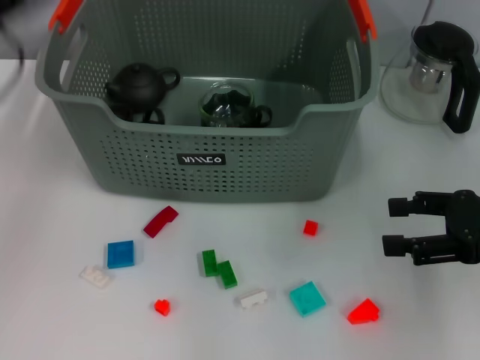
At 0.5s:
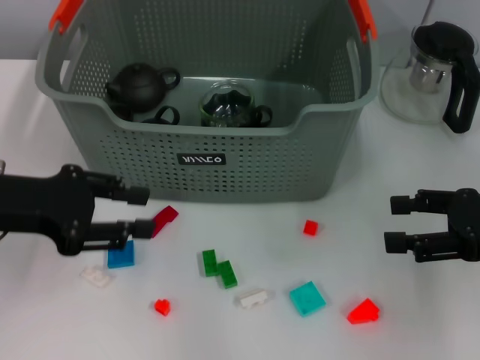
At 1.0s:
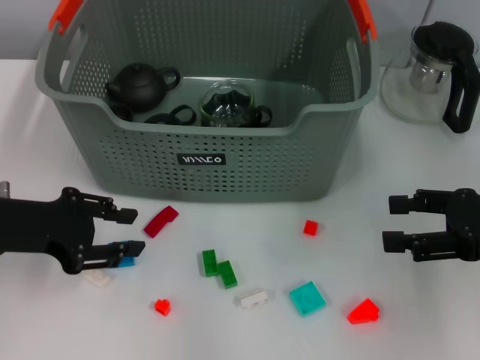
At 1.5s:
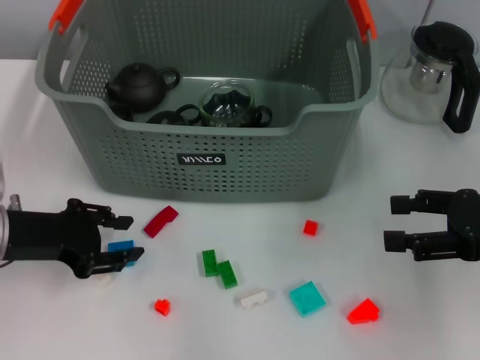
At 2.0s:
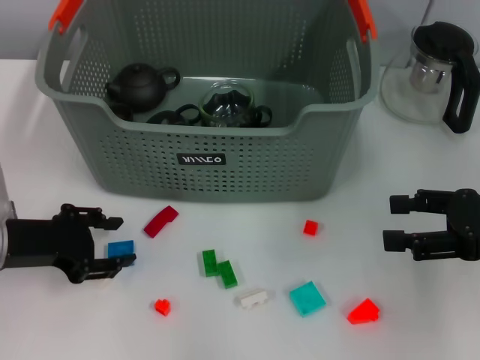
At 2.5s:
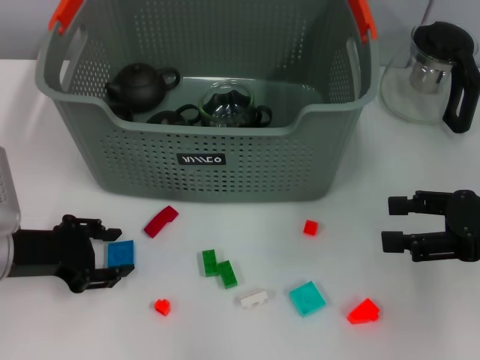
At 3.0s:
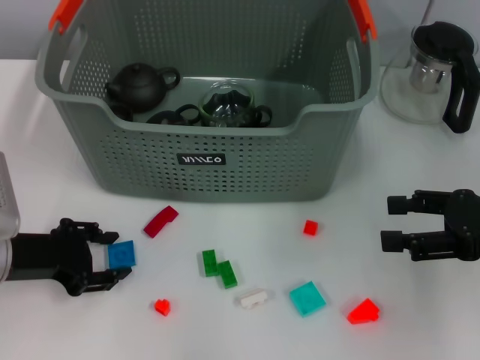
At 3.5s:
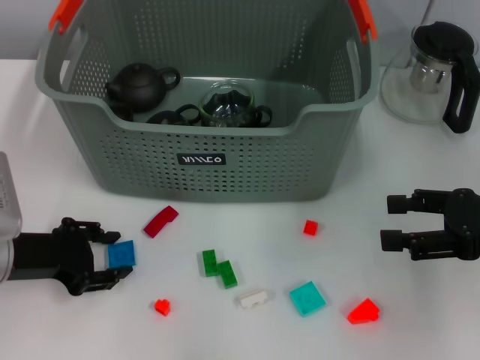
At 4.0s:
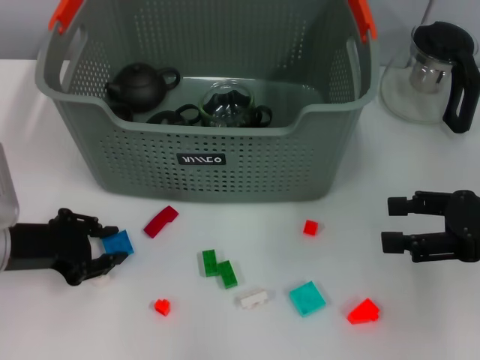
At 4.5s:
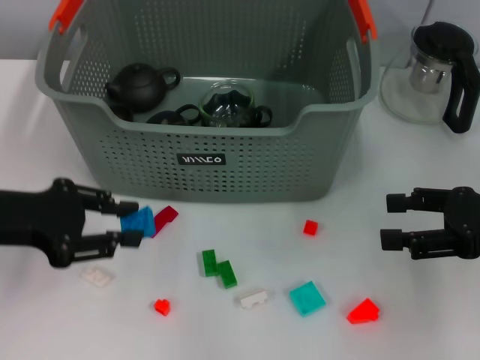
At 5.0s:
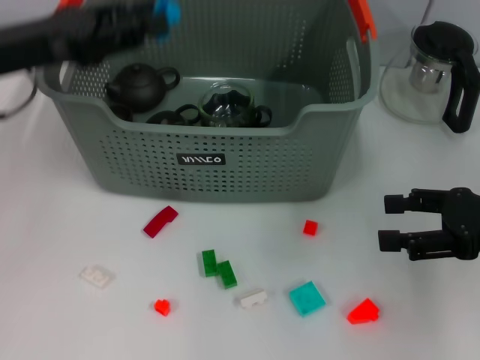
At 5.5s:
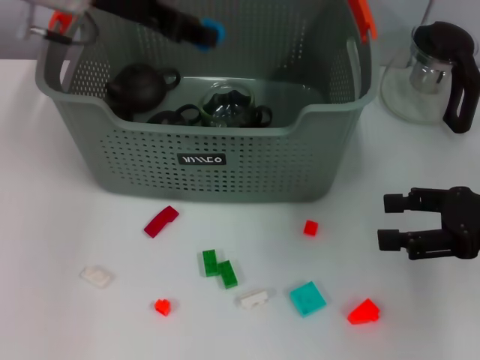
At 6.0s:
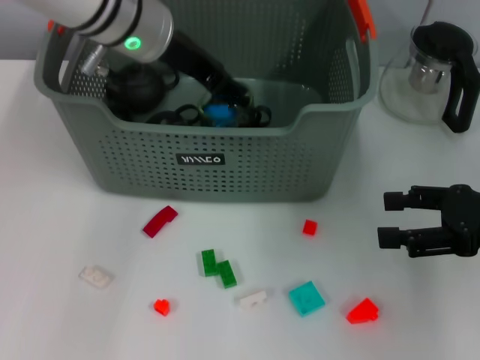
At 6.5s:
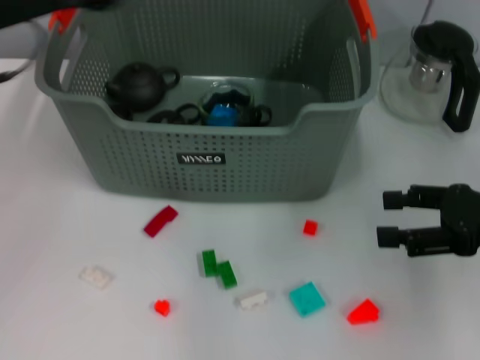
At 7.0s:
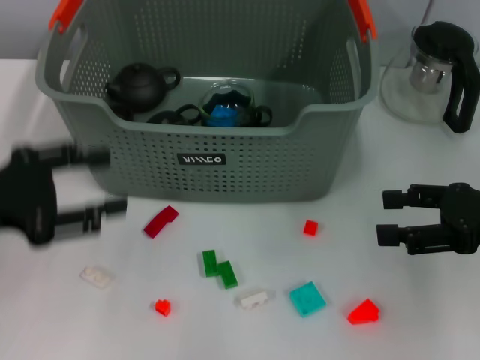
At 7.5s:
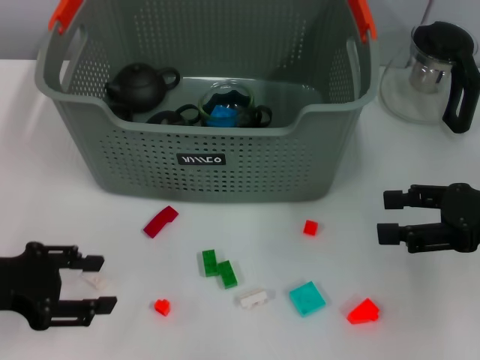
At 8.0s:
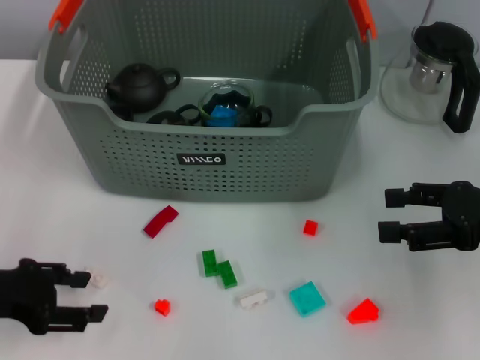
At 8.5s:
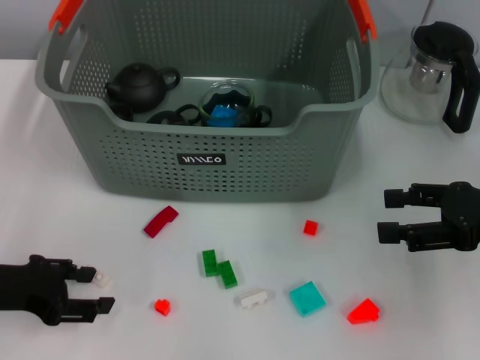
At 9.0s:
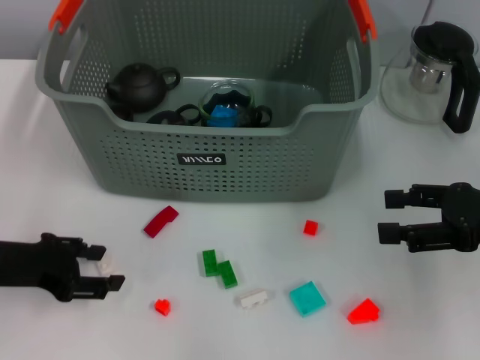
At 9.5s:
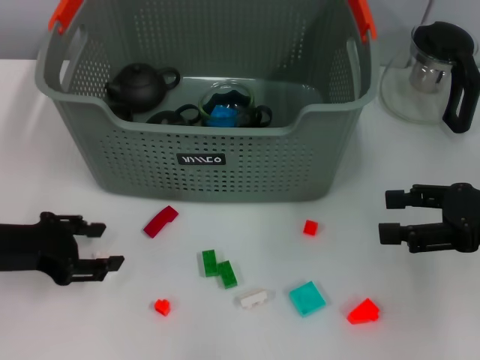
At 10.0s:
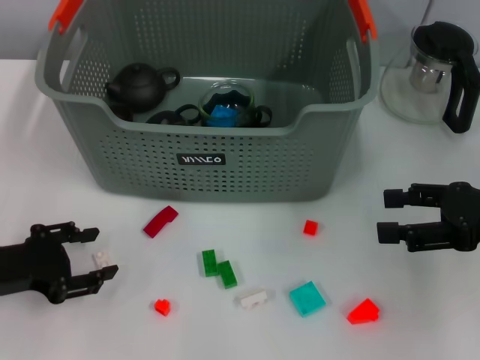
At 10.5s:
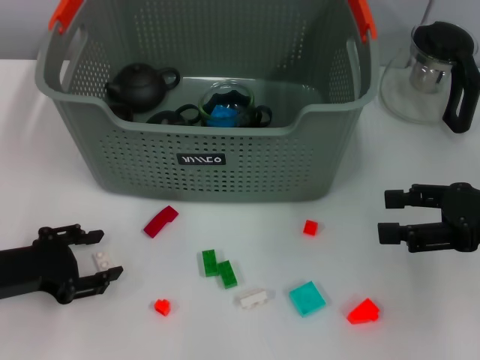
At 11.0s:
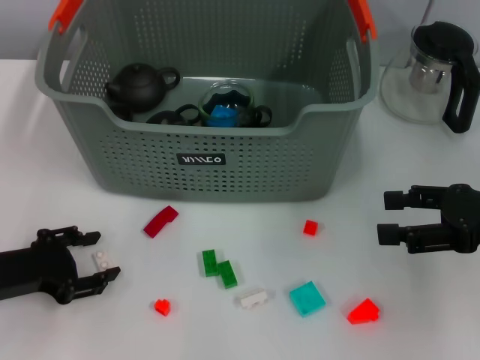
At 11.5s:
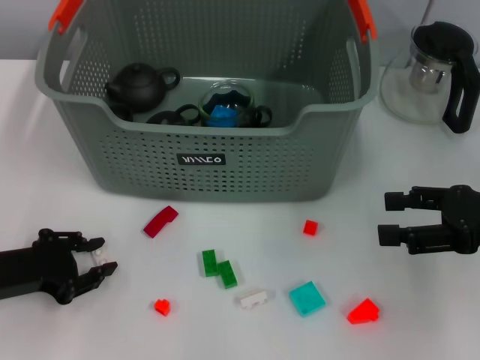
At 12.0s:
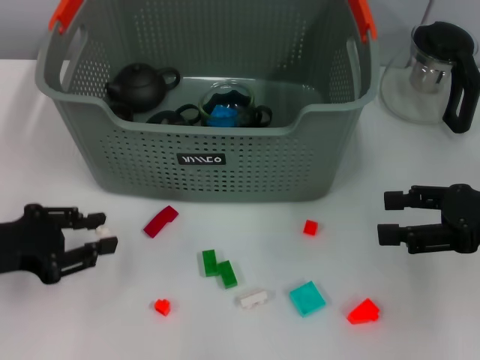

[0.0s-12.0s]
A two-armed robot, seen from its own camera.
Task of the whole recording: pick up the teacup on the table and place it into the storage bin, pick up the block on the table and place it into the storage bin.
Step, 0.0s to 3.5s: Grasp the dark blue block with left gripper.
Step, 4.0s to 6.0s: Place the dark blue block in the storage box with left gripper.
Step, 6.5s to 11.5s: Grasp the white block with left gripper.
0.0s to 2.0s: The left gripper shifts roughly 15 cm downward.
2.0s to 4.0s: There are only small adjustments of the grippers.
4.0s to 6.0s: The left gripper is displaced to the right, upward and forward by approximately 25 cm.
6.0s to 8.0s: The left gripper shifts about 30 cm to the left, backward and downward.
10.0s to 12.0s: There are only small adjustments of the grippers.

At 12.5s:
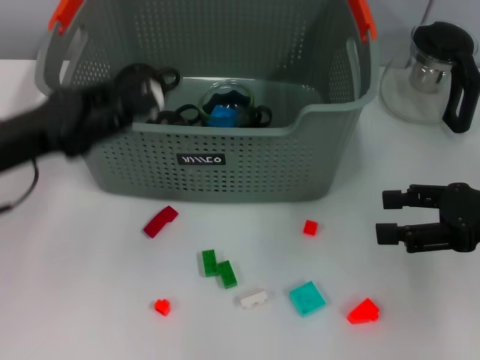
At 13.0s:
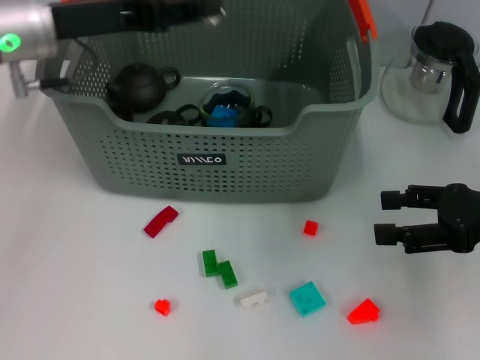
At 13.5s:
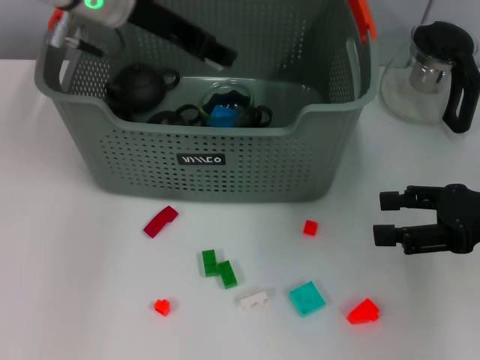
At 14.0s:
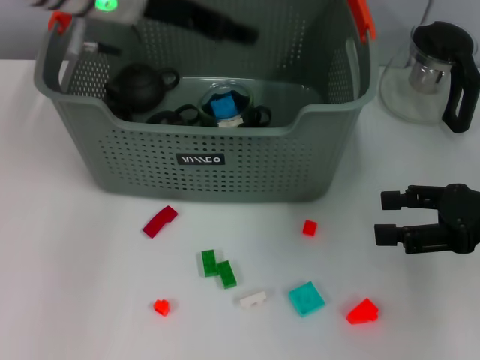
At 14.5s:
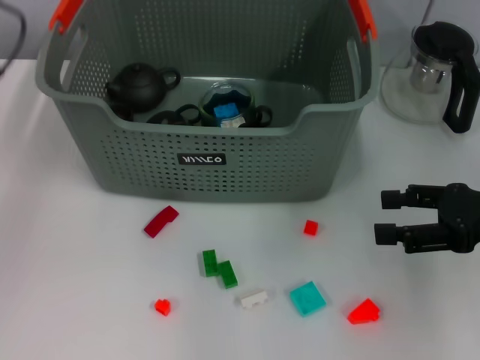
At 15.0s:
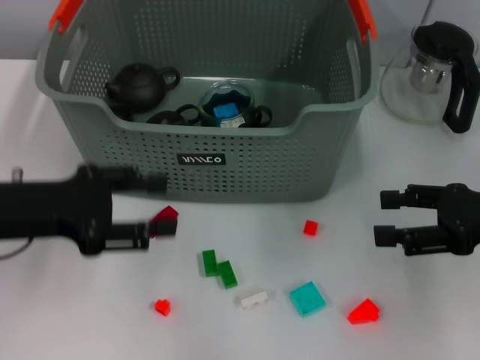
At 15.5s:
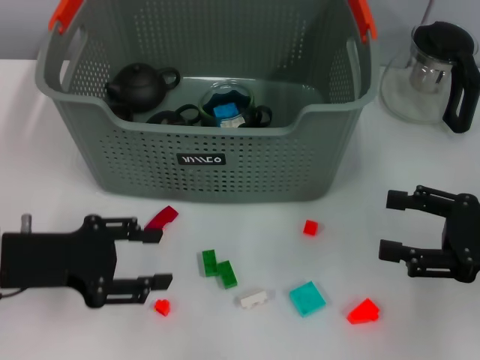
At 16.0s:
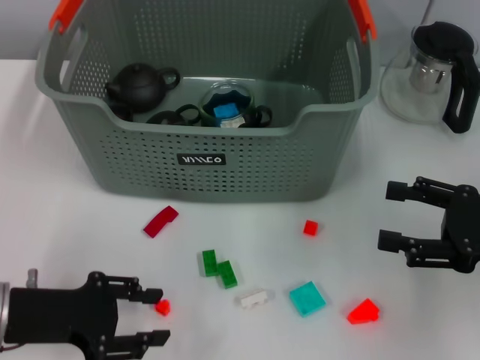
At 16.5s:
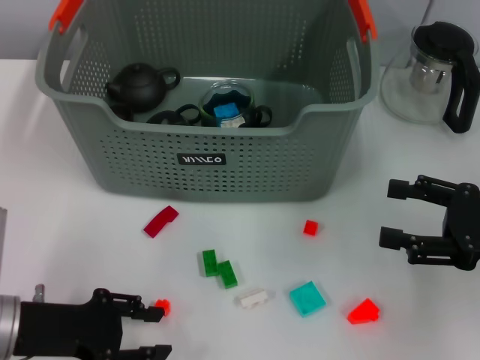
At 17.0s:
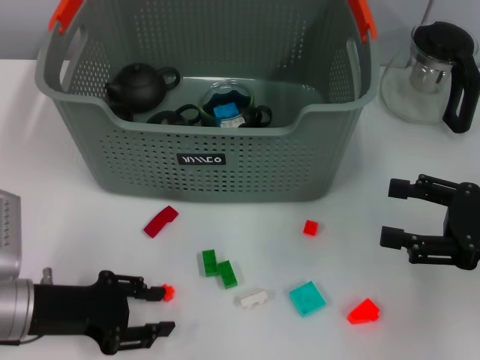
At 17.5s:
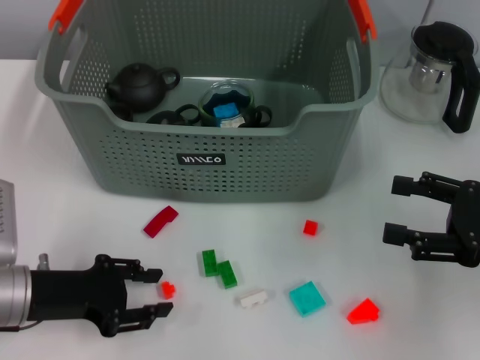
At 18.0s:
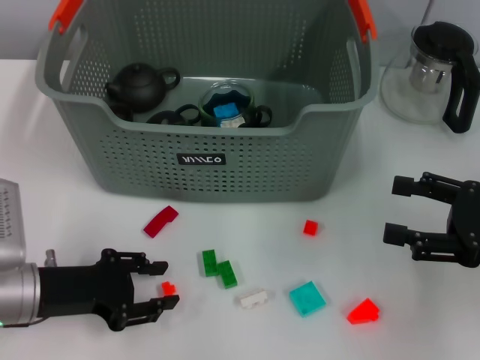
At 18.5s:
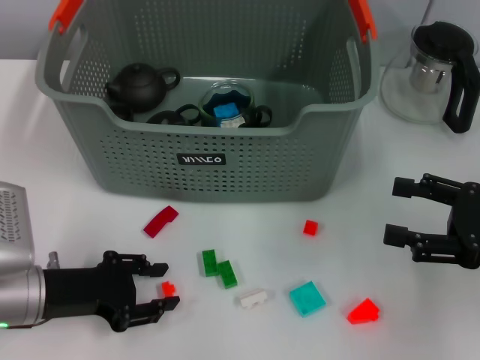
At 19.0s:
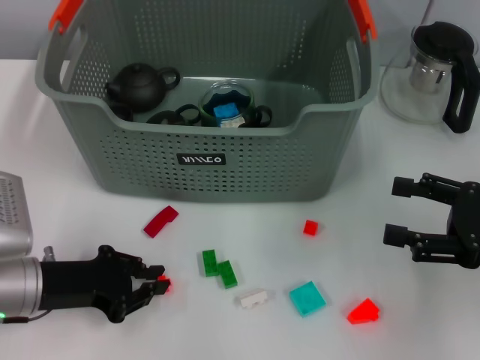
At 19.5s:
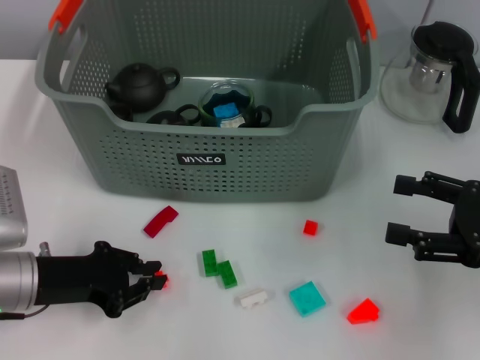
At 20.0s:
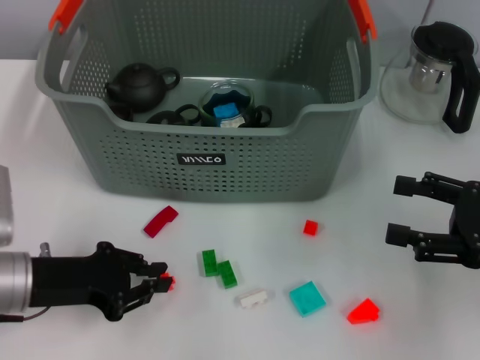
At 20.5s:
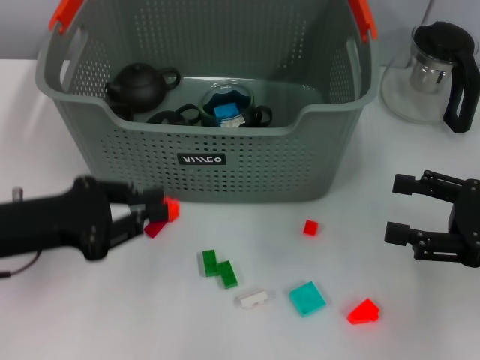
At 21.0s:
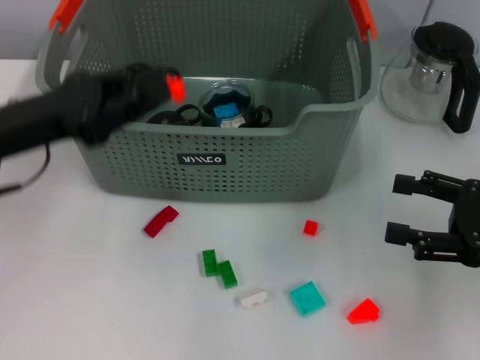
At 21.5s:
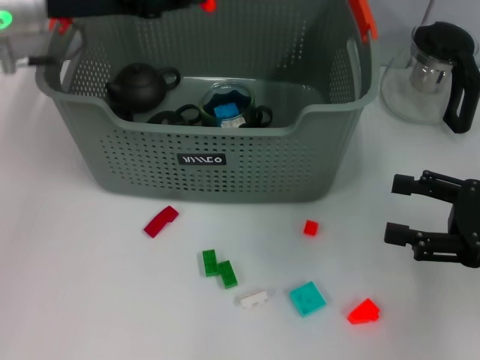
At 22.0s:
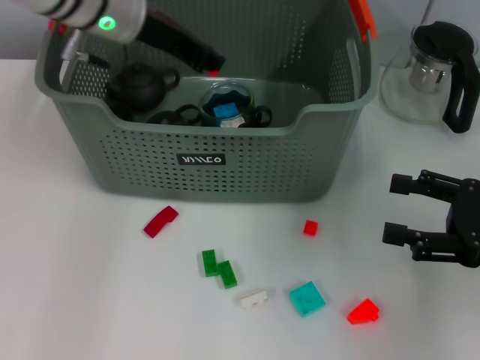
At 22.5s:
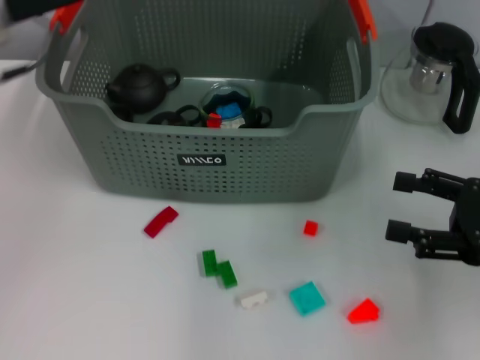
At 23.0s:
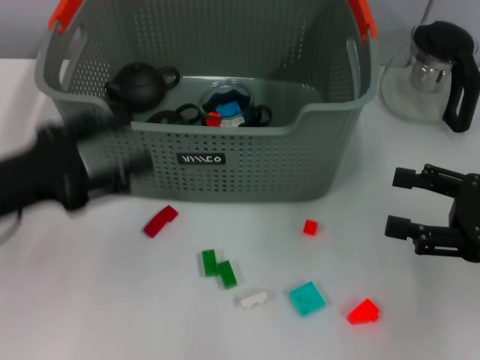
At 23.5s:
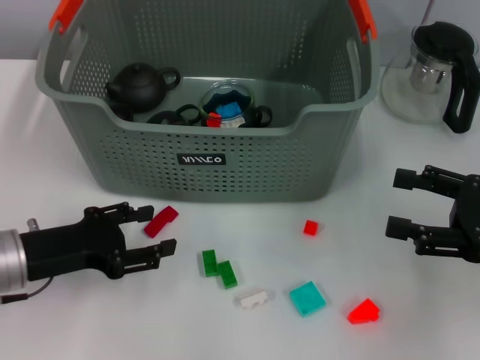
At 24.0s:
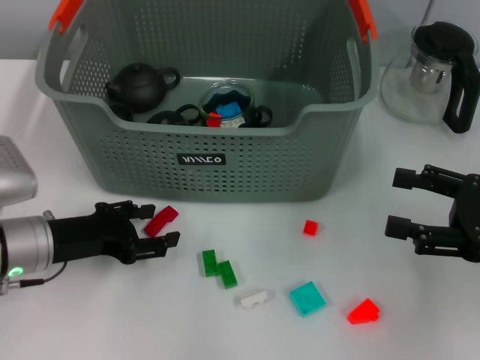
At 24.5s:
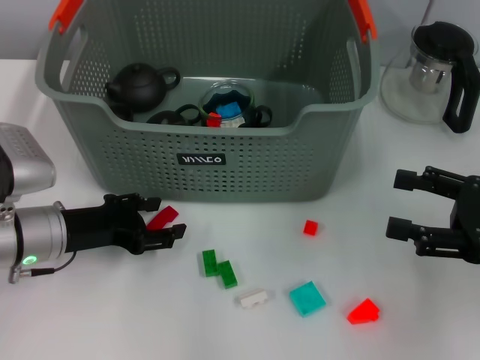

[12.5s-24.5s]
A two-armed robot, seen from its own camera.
Task of the whole recording: pick up the teacup on the table and place it into the storage bin, pick up the block on the table and place it into the storage bin.
Step, 14.0s to 19.0s: Grasp the orange block with left gripper.
Step, 19.5s to 22.0s: Place the orange block in the storage box with left gripper.
12.5s to 14.5s: The left gripper travels upward by roughly 5 cm, and reaches approximately 15 cm forward, then returns.
14.5s to 16.5s: The left gripper travels downward and backward by about 20 cm.
16.5s to 18.5s: The grippers move only a little.
18.5s to 20.5s: The left gripper heads upward, covering some 5 cm, and closes its fingers.
20.5s to 22.5s: The left gripper moves upward and forward, approximately 15 cm, and opens up.
22.5s to 24.5s: The left gripper moves downward, roughly 20 cm.

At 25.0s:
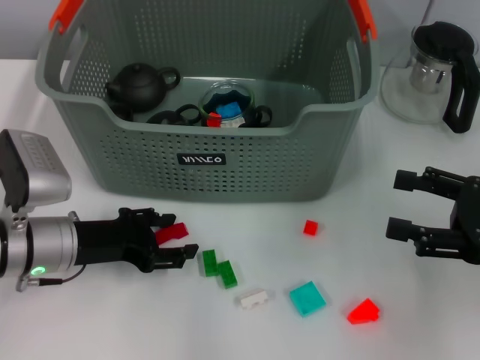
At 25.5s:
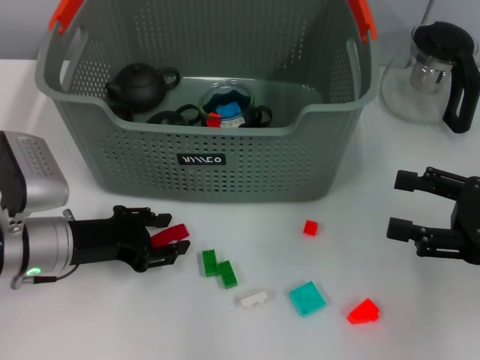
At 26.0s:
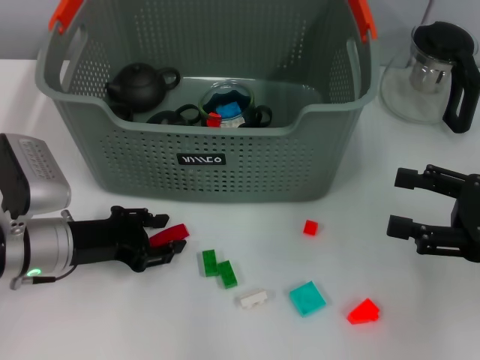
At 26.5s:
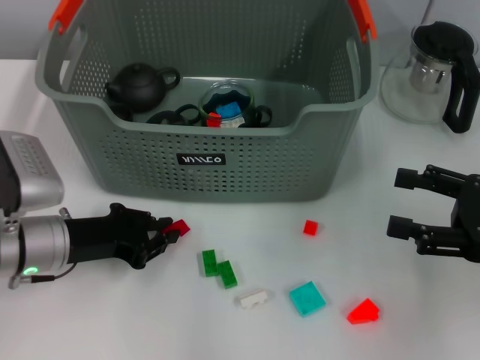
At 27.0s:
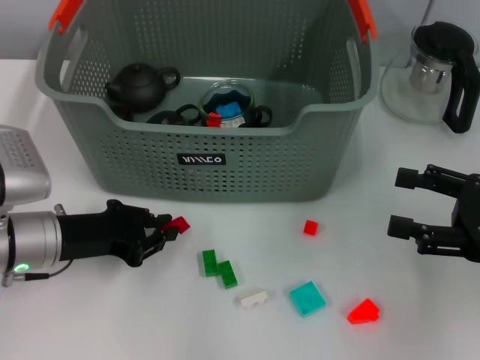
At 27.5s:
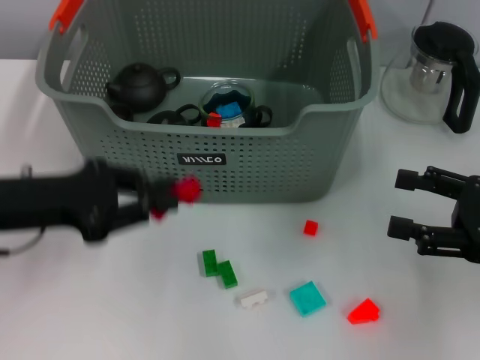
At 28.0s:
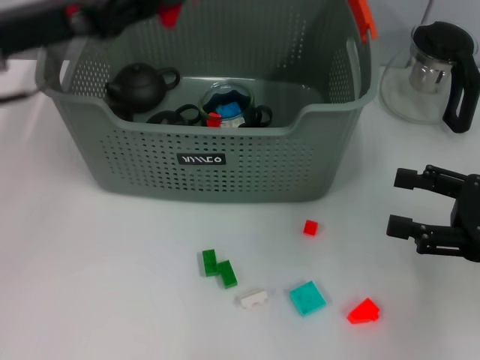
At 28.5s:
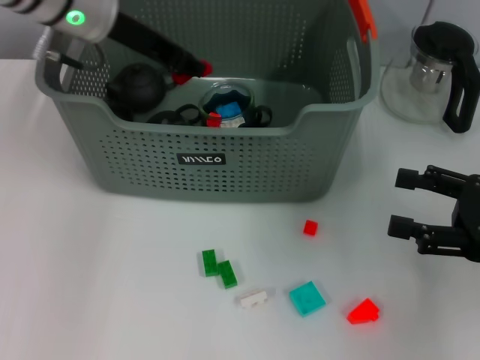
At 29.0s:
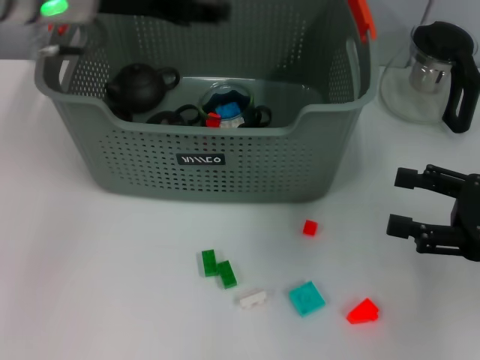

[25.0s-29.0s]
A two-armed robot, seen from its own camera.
Task of the whole recording: pick up the teacup on the table and place it into the storage bin, pick up the block on the table and place it into the storage bin.
Step, 26.5s to 28.5s: Place the red block in the storage box with left gripper.
25.0s to 27.0s: The left gripper closes up.
27.0s to 29.0s: The left gripper moves upward and forward, about 20 cm, and opens up.
